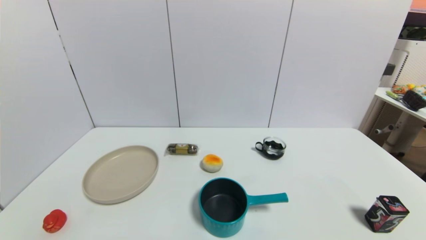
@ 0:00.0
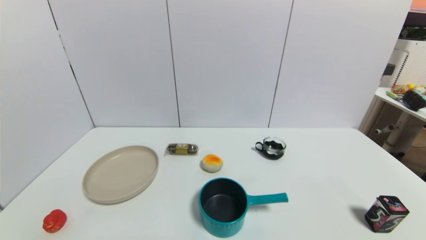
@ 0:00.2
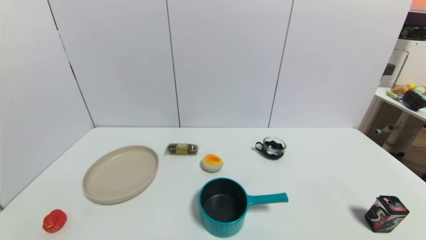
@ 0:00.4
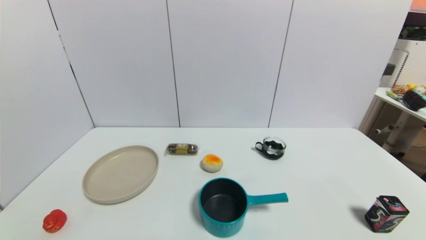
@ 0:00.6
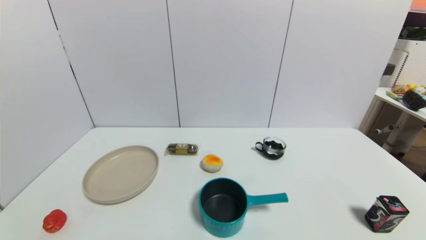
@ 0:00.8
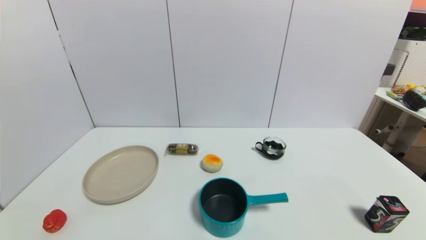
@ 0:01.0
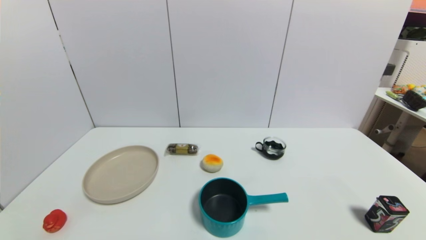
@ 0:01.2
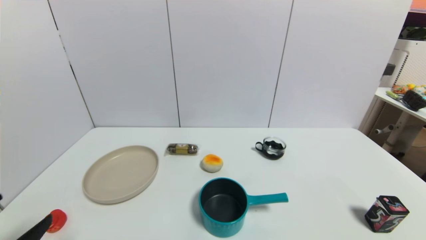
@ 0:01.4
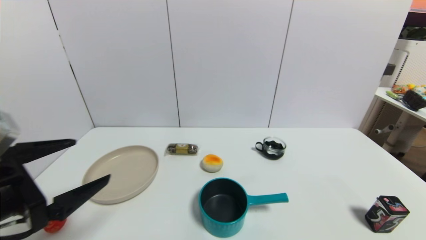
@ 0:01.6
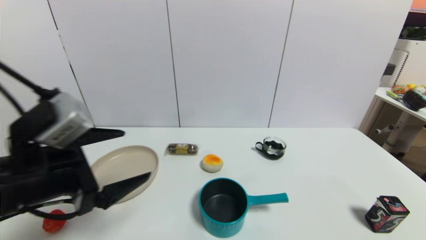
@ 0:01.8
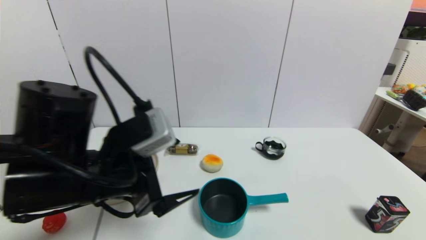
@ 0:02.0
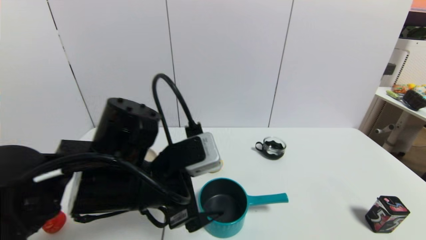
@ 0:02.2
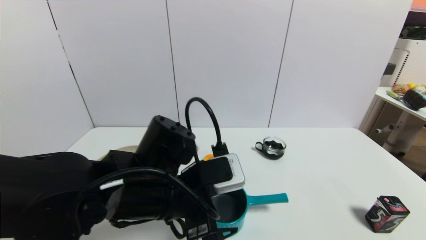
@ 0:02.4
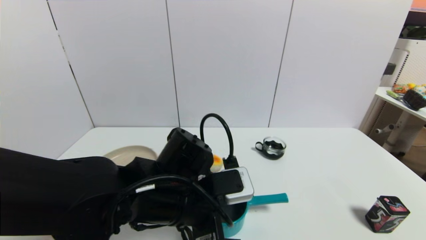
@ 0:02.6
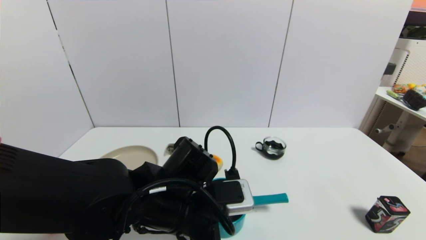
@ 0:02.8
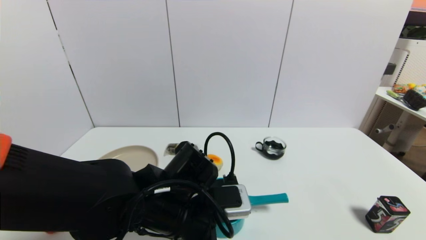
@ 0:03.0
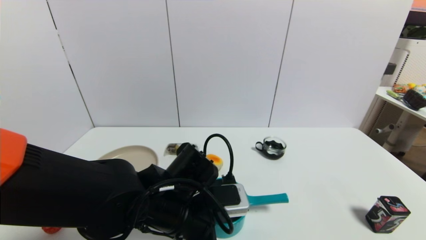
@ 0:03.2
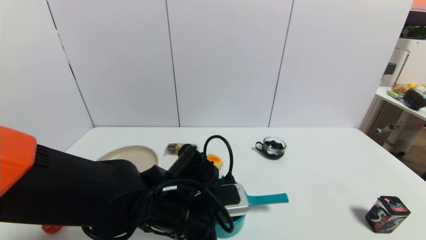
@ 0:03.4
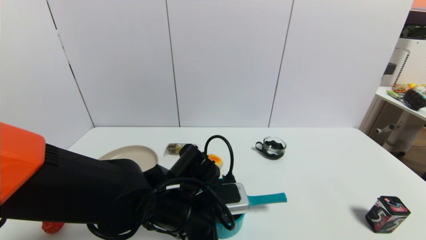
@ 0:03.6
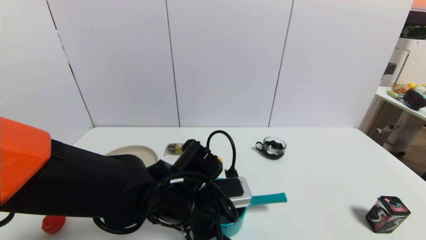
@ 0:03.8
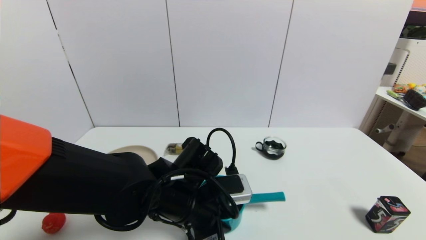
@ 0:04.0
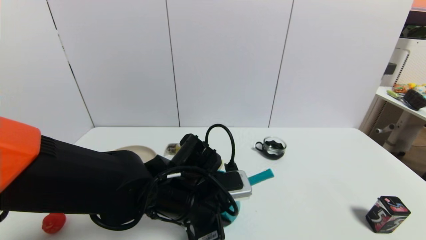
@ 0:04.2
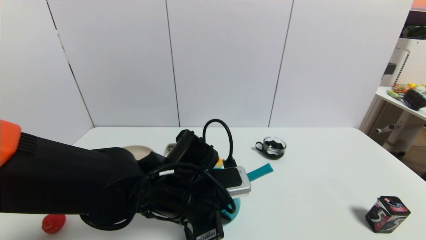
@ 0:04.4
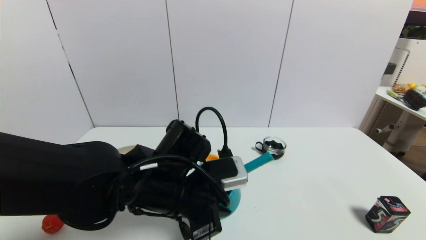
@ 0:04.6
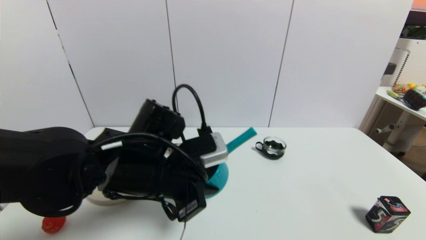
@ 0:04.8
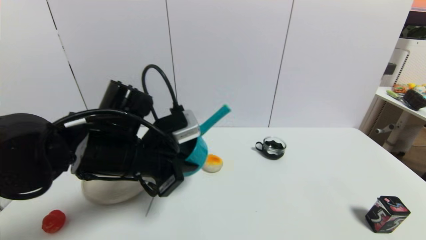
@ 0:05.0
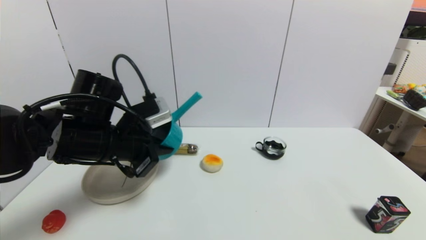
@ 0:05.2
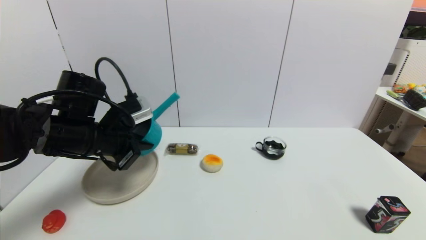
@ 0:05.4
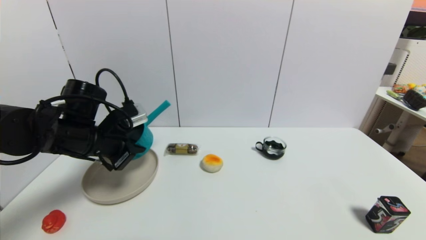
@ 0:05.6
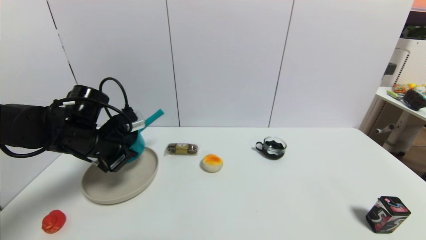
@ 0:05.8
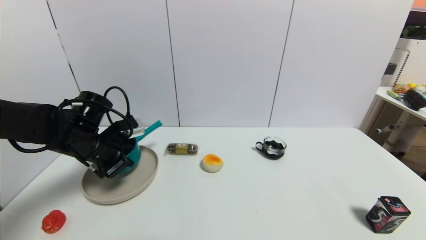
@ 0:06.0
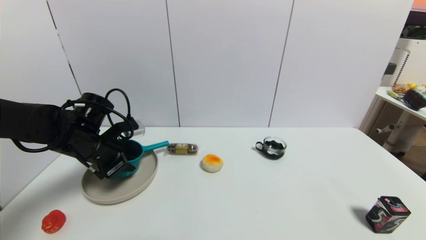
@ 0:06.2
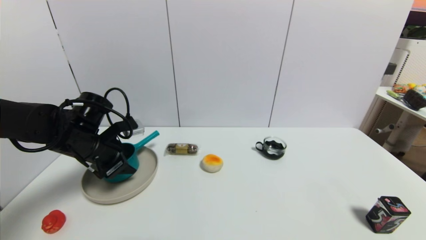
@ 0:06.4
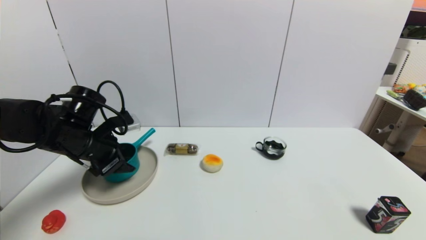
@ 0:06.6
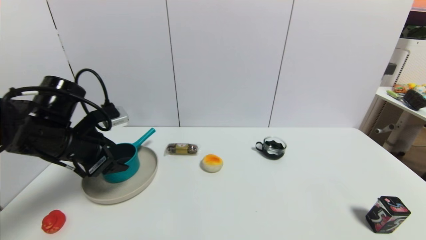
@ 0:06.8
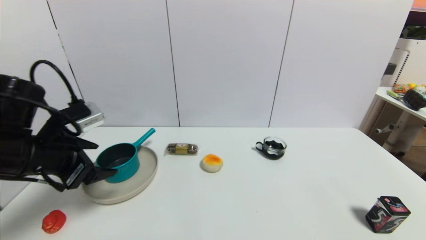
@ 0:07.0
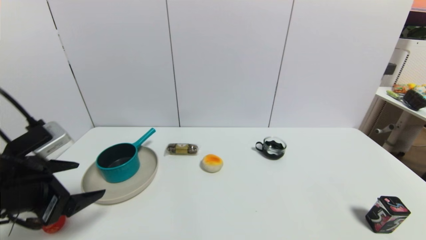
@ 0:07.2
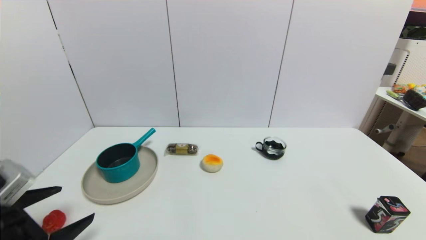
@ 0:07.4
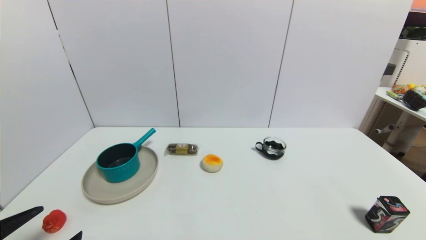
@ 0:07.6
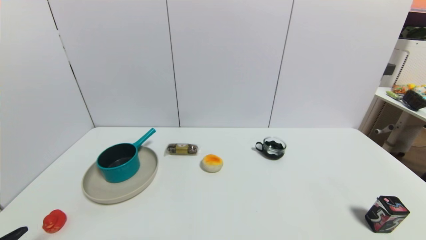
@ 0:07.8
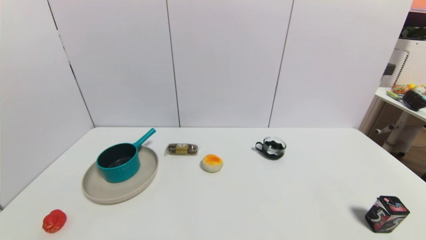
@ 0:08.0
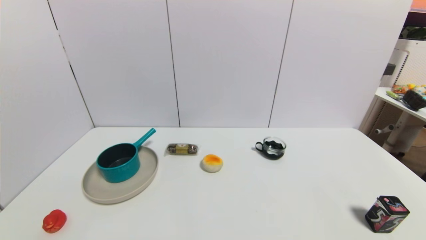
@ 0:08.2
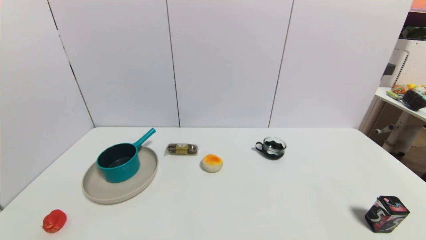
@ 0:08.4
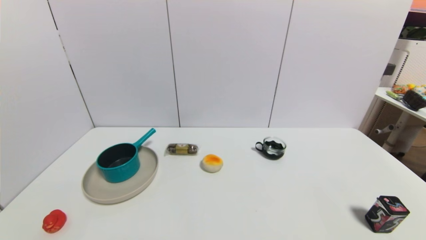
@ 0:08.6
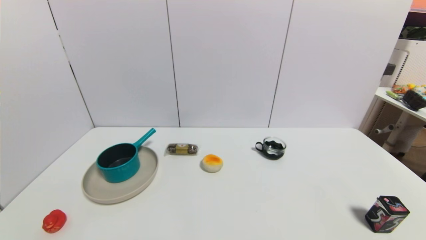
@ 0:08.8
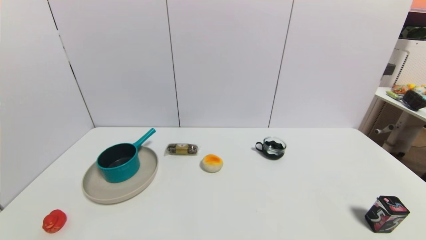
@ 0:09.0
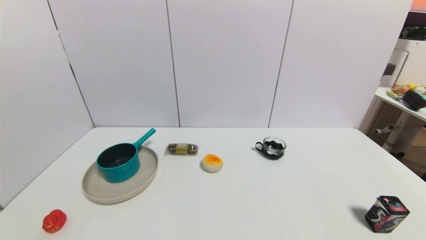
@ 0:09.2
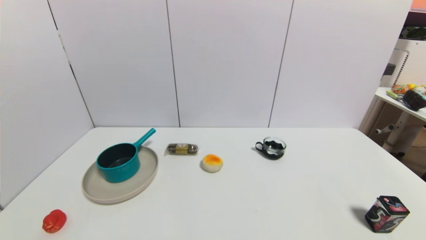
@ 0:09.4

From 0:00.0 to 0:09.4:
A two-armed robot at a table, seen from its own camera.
Task of the whole recording: use a gripper to pick the target object and place on the brown plate.
Step, from 0:00.0 to 0:04.0: Grasp the blue pot with the left gripper.
Step, from 0:04.2 to 0:06.4: Place the blue pot on the brown plate with the left gripper.
From 0:00.0 to 0:01.6: The left gripper moves upward and forward, roughly 20 cm.
From 0:01.6 to 0:03.2: The left gripper travels to the right, downward and forward by about 25 cm.
From 0:03.2 to 0:04.8: The left gripper travels upward by about 5 cm, and closes.
From 0:04.8 to 0:06.2: The left gripper shifts approximately 20 cm to the left and forward, and opens up.
From 0:06.2 to 0:07.8: The left gripper is displaced backward by some 30 cm, and opens its fingers.
